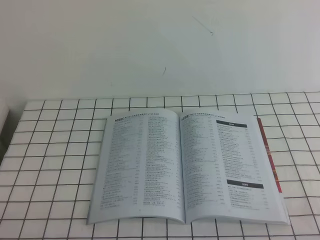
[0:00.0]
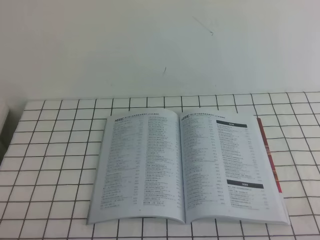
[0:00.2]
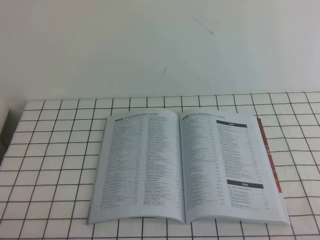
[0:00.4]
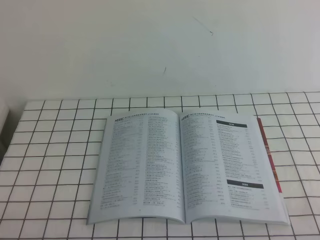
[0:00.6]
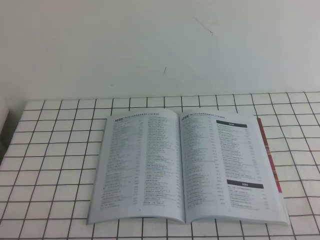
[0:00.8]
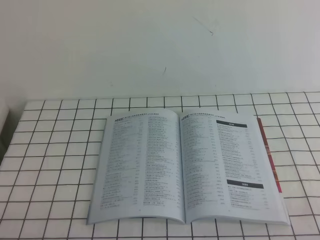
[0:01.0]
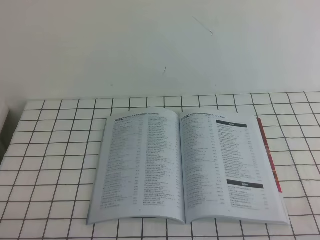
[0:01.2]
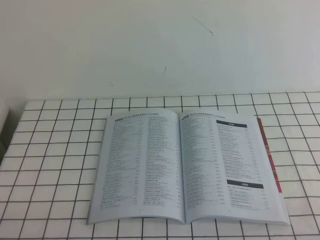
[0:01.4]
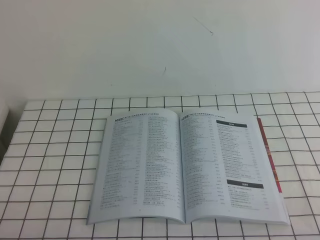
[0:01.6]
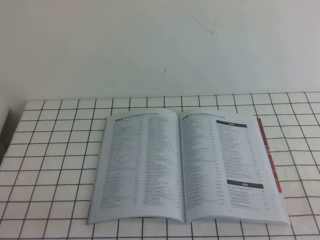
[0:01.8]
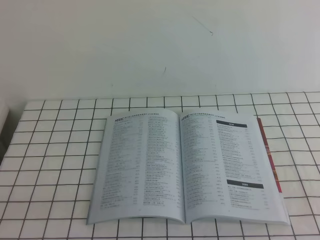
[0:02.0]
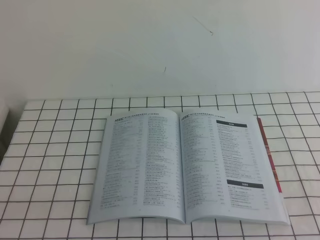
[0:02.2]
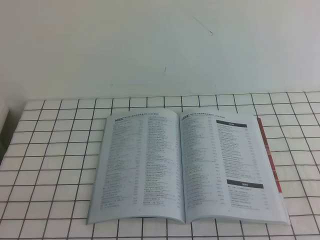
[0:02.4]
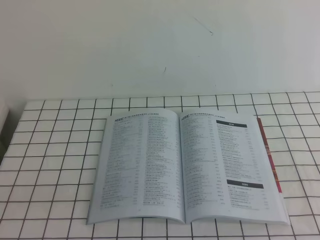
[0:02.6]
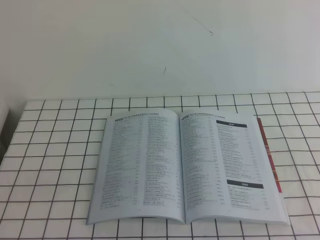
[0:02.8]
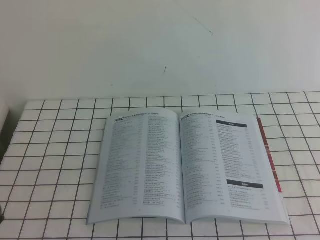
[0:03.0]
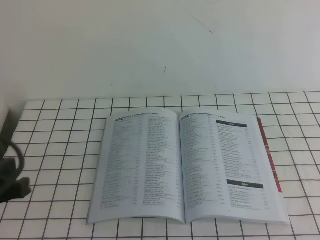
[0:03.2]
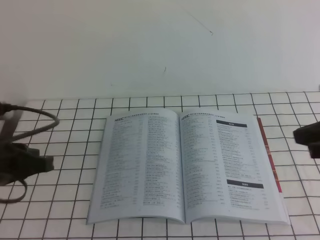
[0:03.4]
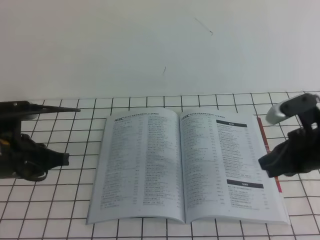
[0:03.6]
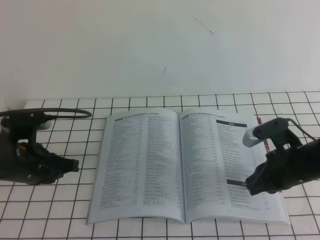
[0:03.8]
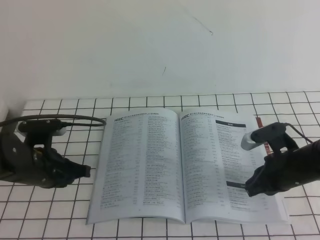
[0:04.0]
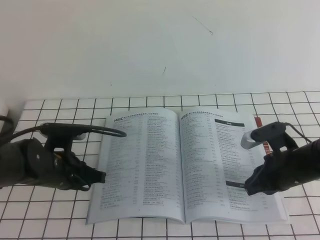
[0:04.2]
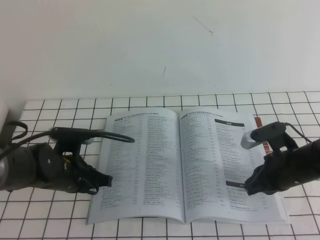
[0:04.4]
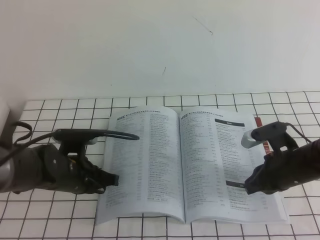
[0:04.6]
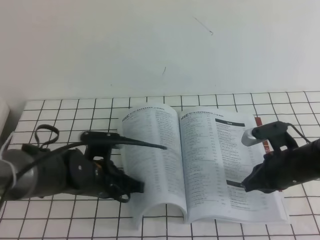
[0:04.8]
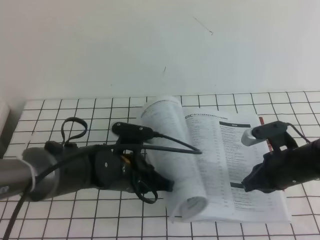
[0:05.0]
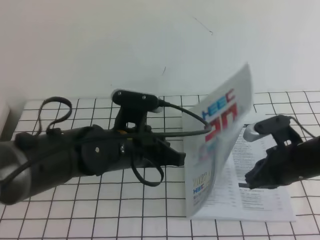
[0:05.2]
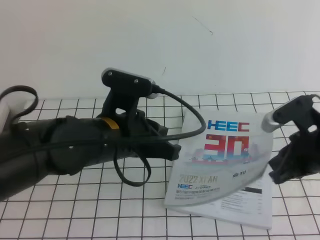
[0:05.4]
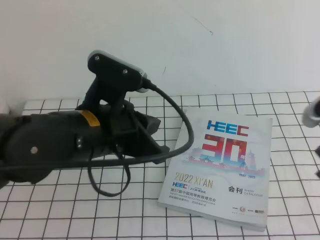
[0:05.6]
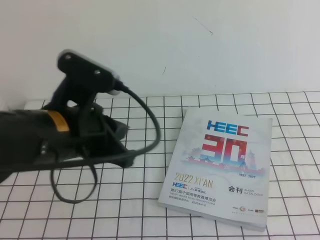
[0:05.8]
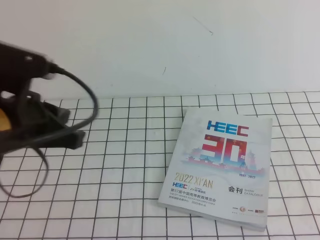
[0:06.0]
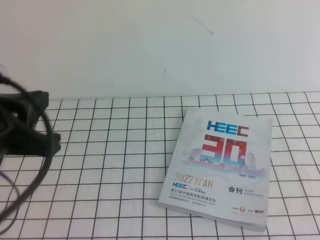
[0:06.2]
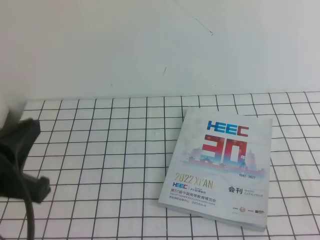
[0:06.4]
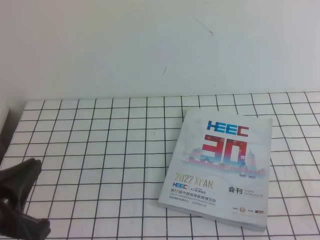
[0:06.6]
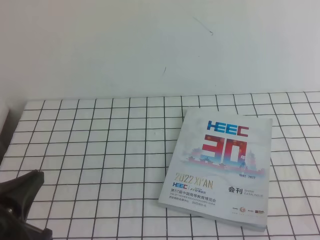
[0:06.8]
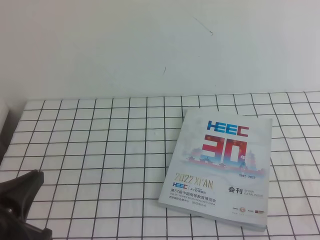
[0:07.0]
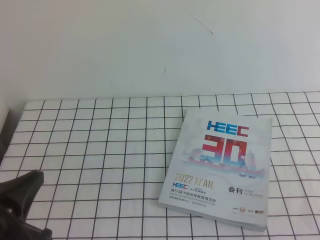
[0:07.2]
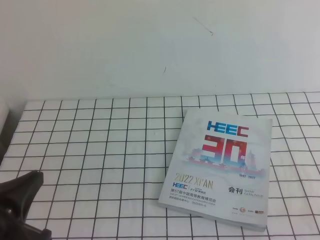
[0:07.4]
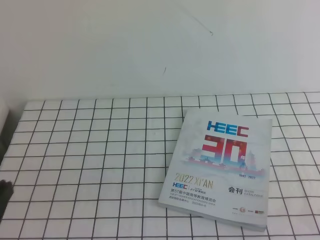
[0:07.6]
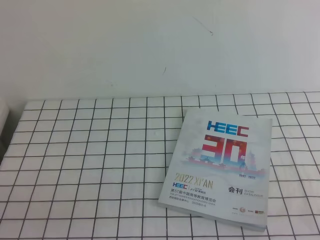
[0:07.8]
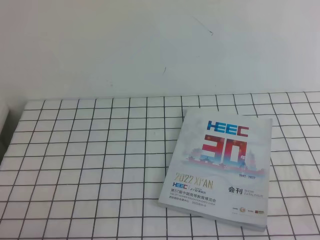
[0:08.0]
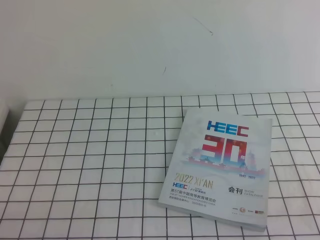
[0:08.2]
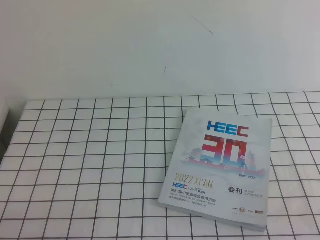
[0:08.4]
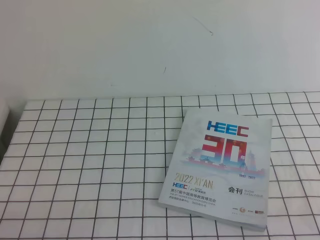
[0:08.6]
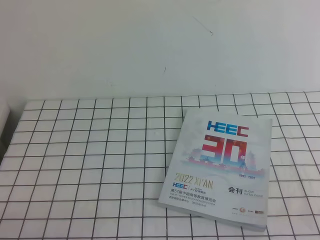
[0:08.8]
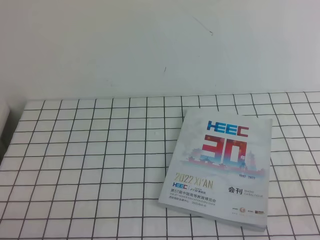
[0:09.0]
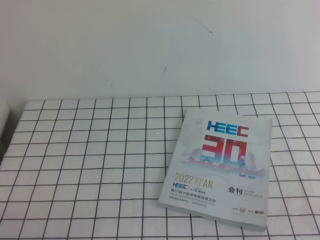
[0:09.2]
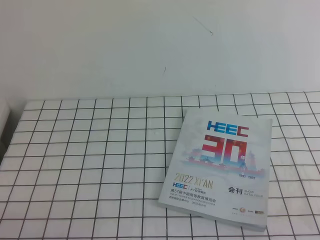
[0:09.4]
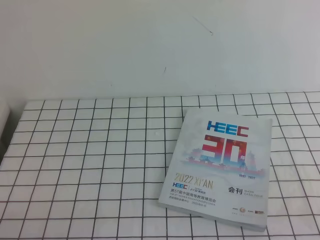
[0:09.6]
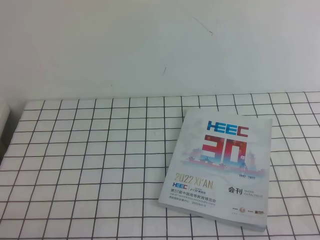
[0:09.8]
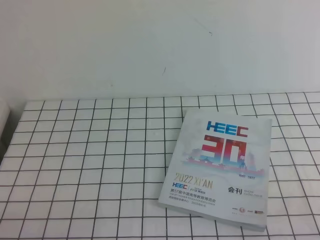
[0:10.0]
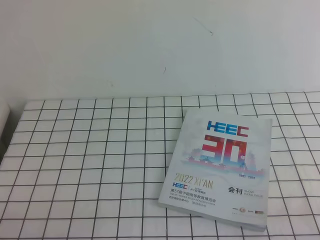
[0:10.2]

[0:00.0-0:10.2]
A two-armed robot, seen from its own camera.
Task of the whole recording: on the white tablecloth, hold the book with one hand and close it with the other.
0:00.0 to 0:01.4: The two grippers keep their place.
0:03.0 to 0:04.4: The right gripper moves downward, forward and to the left, approximately 30 cm. The left gripper shifts about 25 cm forward and downward.
0:04.4 to 0:05.8: Both grippers travel together upward and backward, roughly 20 cm.
0:05.8 to 0:07.2: The left gripper travels backward, to the left and downward by roughly 15 cm. The right gripper travels backward by about 15 cm.
0:07.2 to 0:08.8: The left gripper shifts some 10 cm downward and backward.

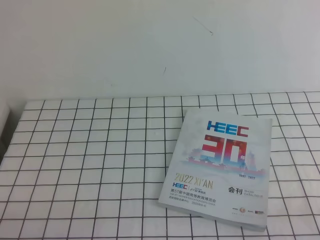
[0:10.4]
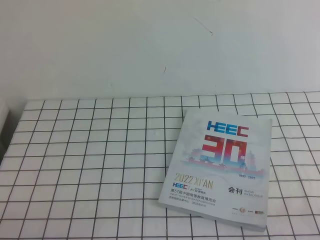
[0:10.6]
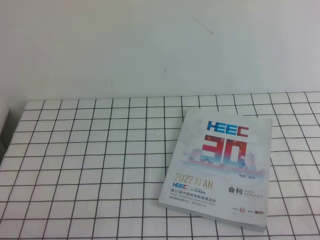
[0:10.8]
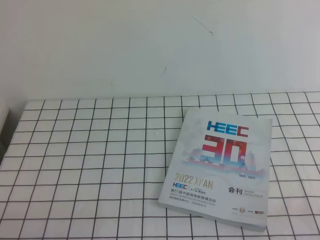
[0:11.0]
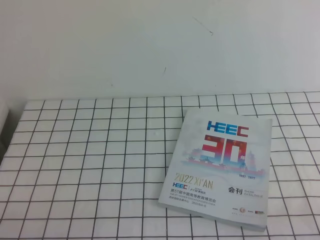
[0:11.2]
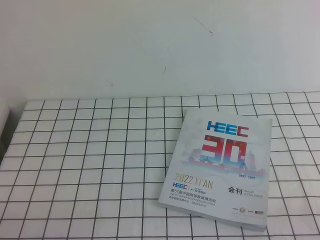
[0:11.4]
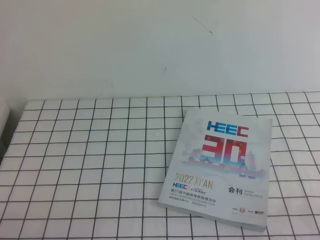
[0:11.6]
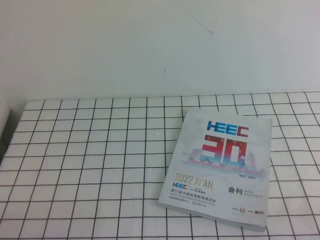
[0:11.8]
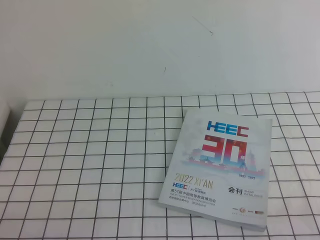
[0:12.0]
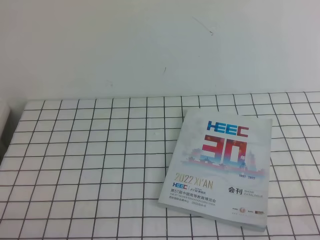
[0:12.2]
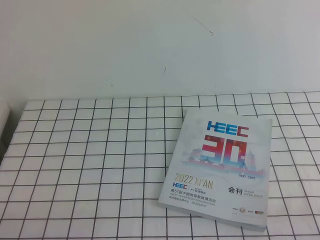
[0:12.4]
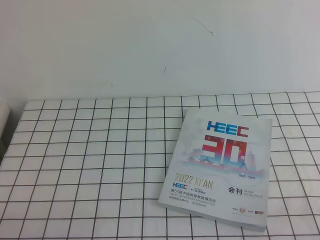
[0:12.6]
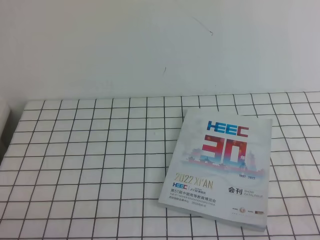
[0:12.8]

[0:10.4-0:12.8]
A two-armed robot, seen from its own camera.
Task of the whole recording: on the white tablecloth, hold the book with one hand and close it with the other.
0:10.4 to 0:12.8: Neither gripper changes place.

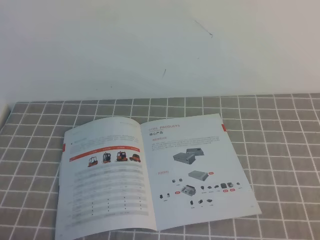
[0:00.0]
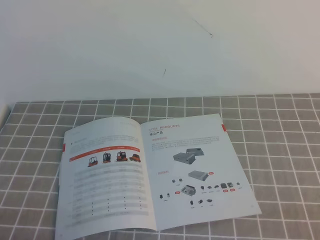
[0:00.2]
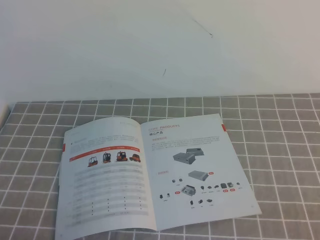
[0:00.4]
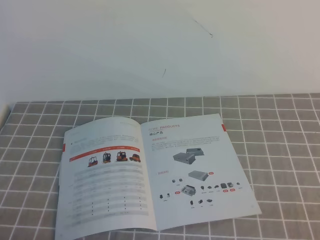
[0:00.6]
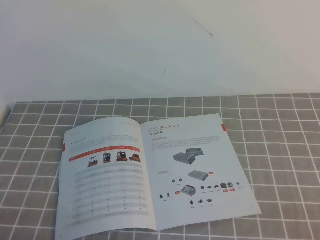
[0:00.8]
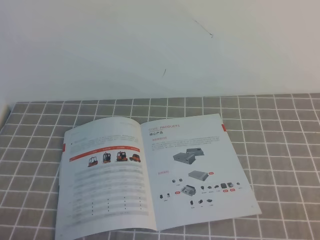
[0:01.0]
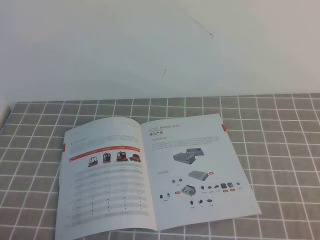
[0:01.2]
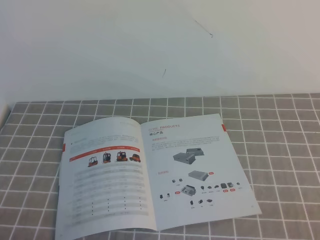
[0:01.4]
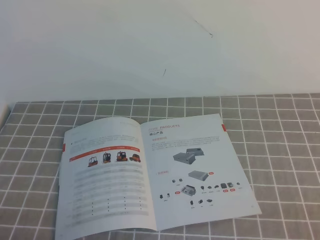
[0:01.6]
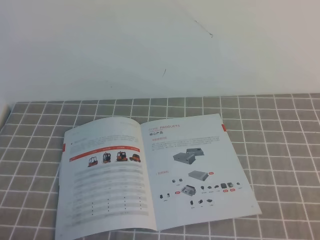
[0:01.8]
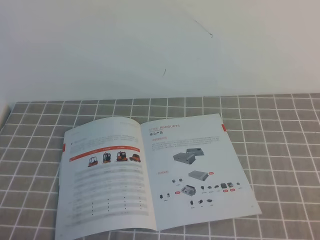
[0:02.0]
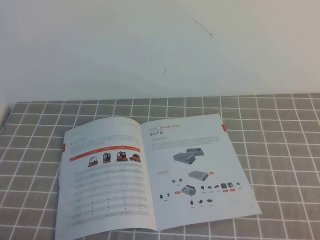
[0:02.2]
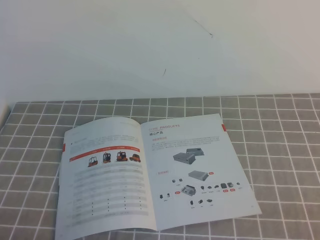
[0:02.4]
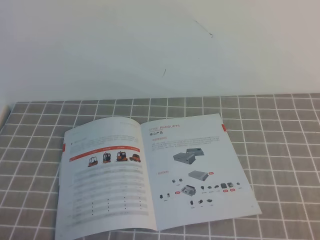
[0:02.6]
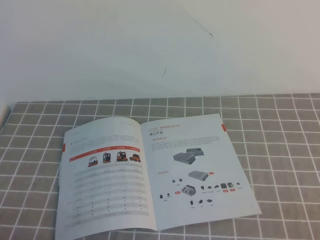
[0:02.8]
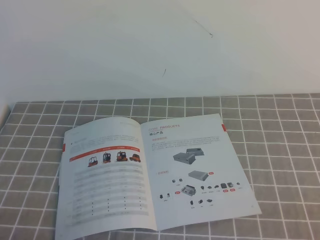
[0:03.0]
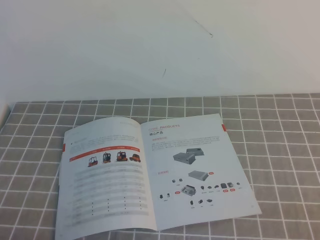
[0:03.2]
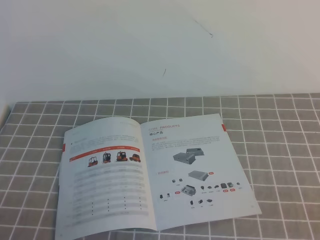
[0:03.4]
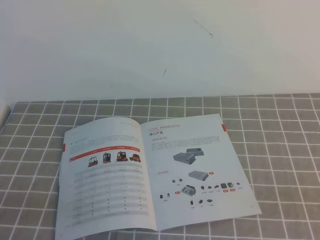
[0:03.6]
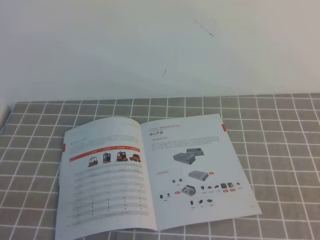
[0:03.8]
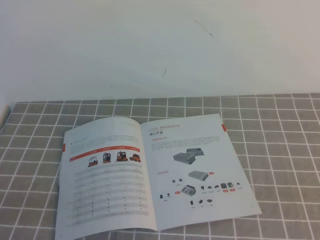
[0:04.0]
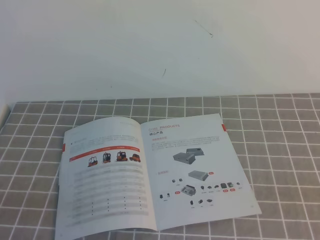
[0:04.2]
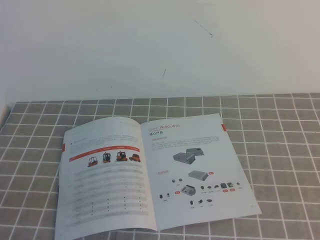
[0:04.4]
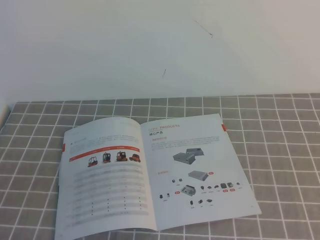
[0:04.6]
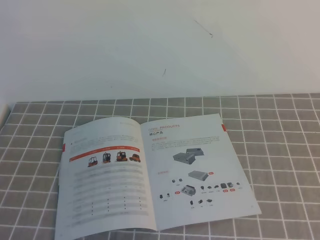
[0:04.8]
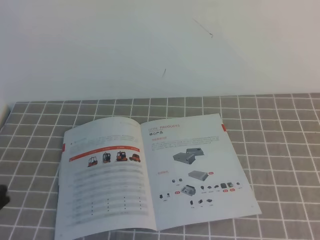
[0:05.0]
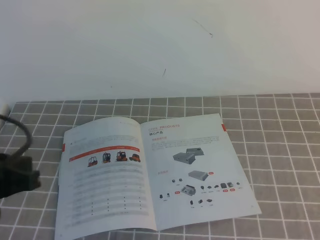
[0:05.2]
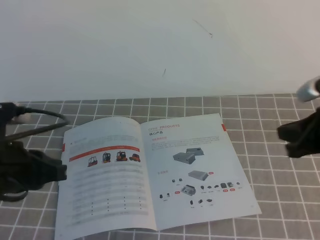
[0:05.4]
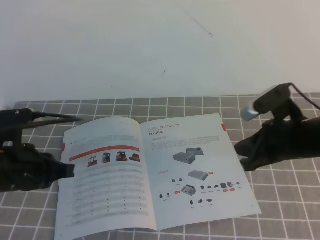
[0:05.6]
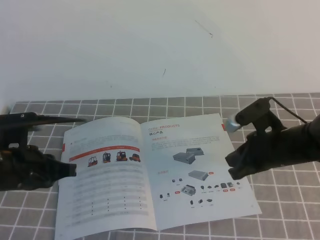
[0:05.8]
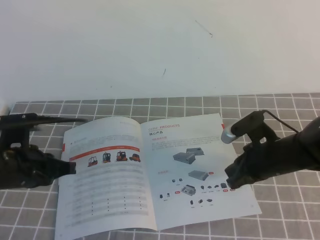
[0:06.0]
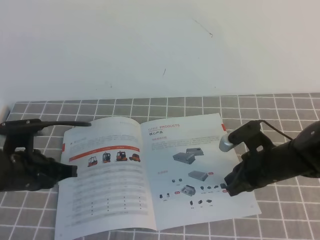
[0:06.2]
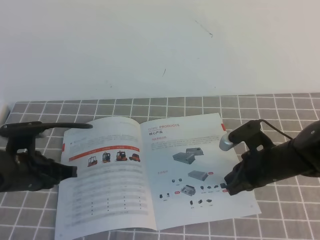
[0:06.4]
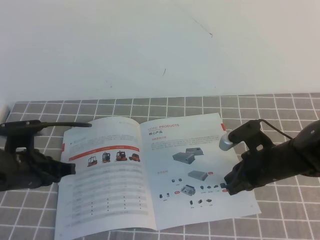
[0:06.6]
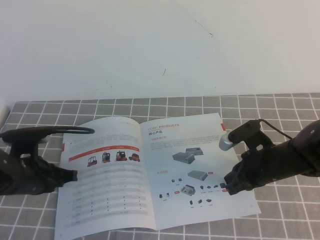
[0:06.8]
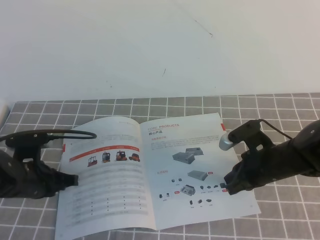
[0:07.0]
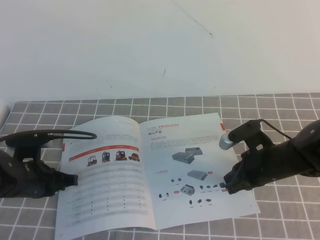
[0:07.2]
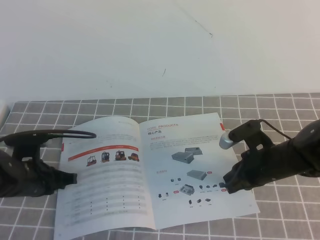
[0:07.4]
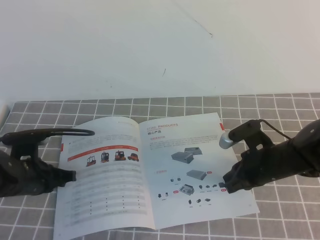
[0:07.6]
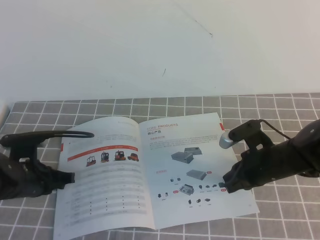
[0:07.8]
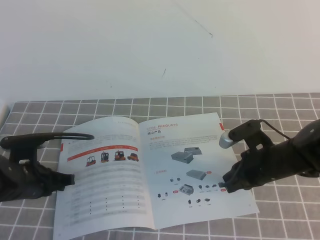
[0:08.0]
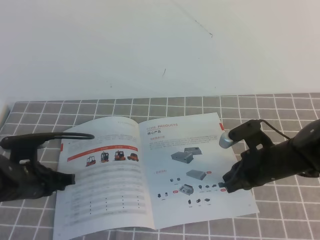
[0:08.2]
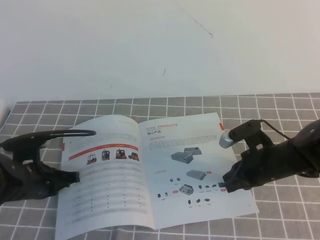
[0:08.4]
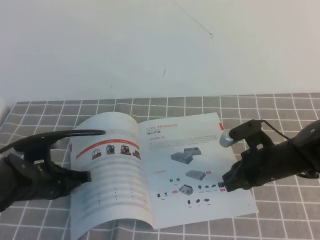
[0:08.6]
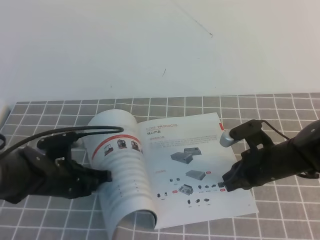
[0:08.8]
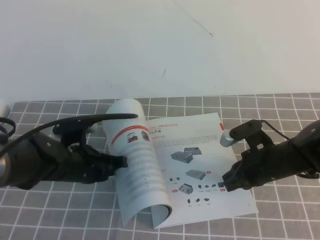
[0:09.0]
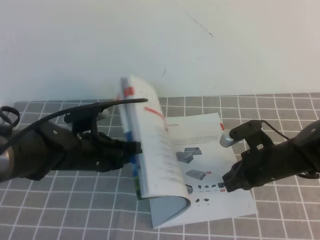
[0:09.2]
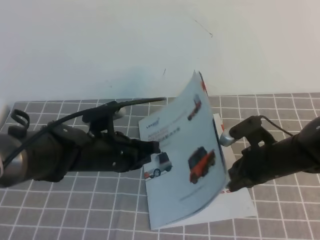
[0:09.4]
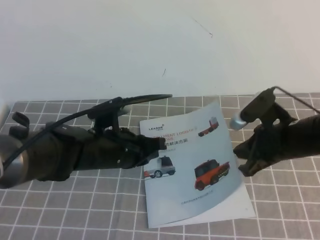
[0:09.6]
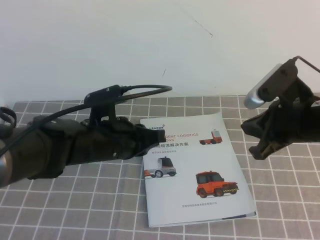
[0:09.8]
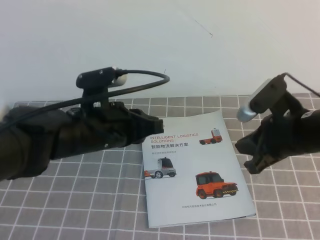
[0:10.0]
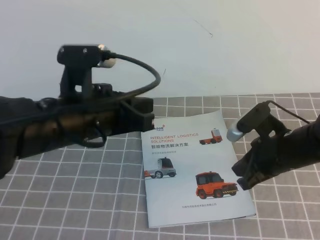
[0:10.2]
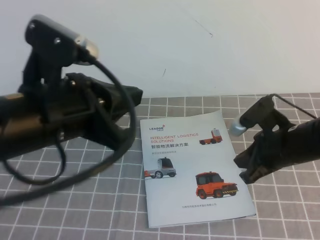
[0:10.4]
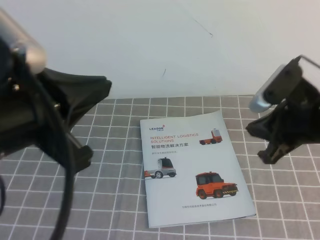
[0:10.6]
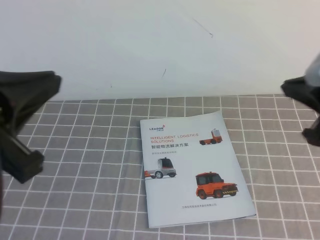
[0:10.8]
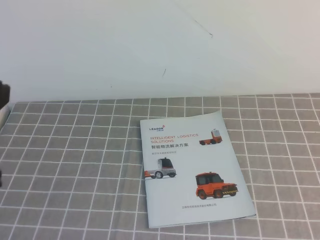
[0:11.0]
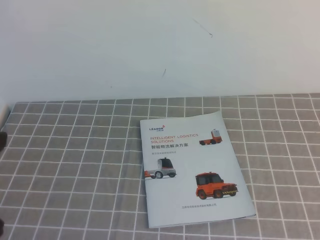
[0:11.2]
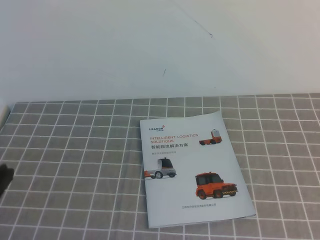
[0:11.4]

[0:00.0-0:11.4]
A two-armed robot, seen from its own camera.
Task of the whole recording: on the grey tablecloth, hold the book with one hand and close it with the other.
0:00.0 to 0:02.8: Both grippers stay about where they are.
0:04.2 to 0:05.6: The left gripper heads forward, covering about 20 cm; the right gripper goes approximately 30 cm forward and to the left.
0:05.6 to 0:07.2: The left gripper shifts roughly 15 cm downward and forward, while the right gripper goes roughly 10 cm downward.
0:07.2 to 0:08.6: The grippers move only a little.
0:08.6 to 0:10.0: The right gripper moves upward, some 10 cm, while the left gripper heads upward and to the right, covering approximately 15 cm.
0:10.0 to 0:11.4: The left gripper goes about 25 cm backward and to the left. The right gripper is displaced backward, upward and to the right by approximately 30 cm.